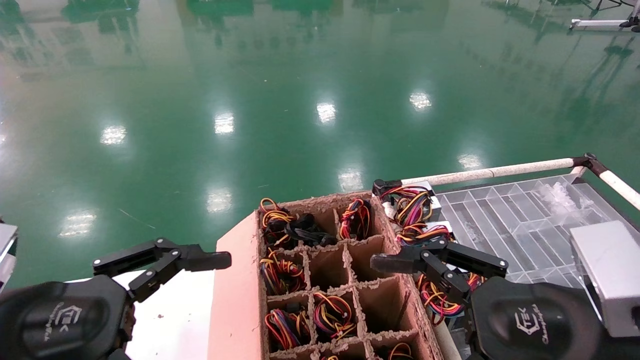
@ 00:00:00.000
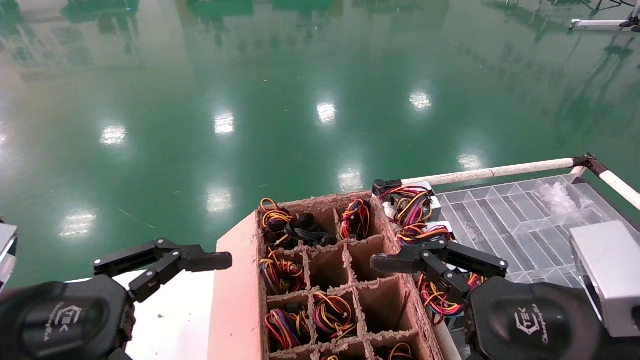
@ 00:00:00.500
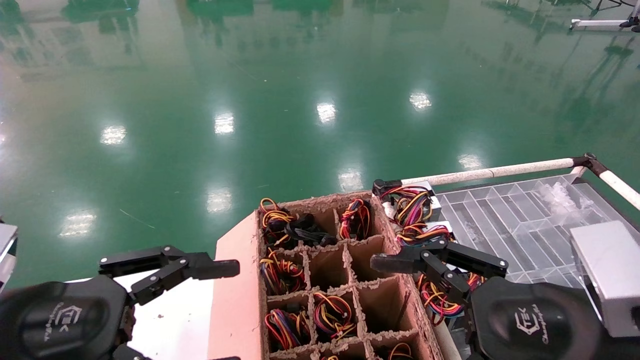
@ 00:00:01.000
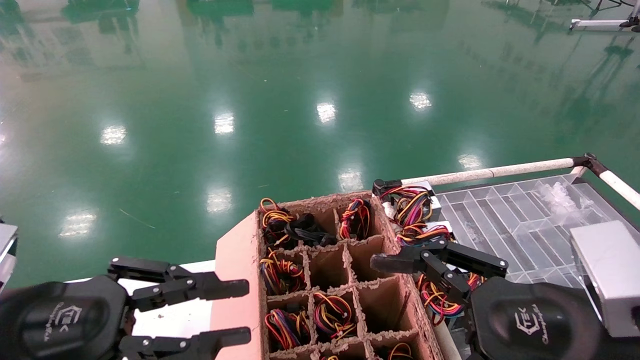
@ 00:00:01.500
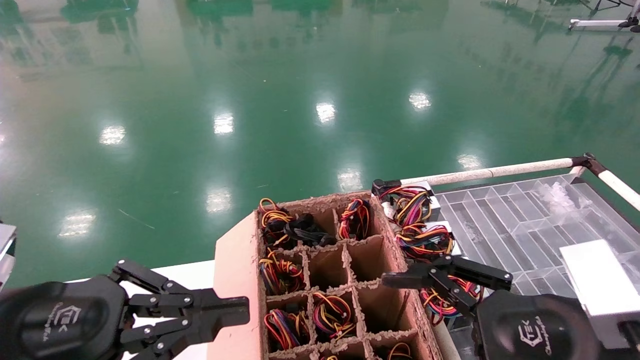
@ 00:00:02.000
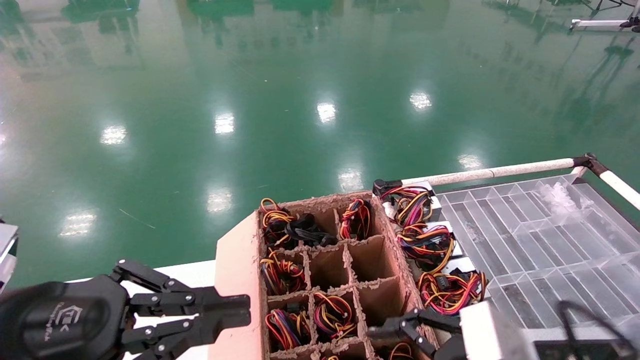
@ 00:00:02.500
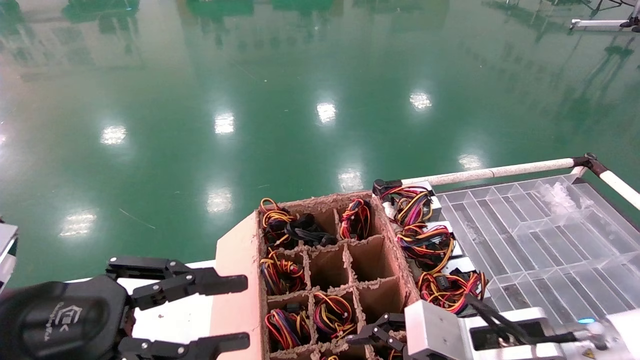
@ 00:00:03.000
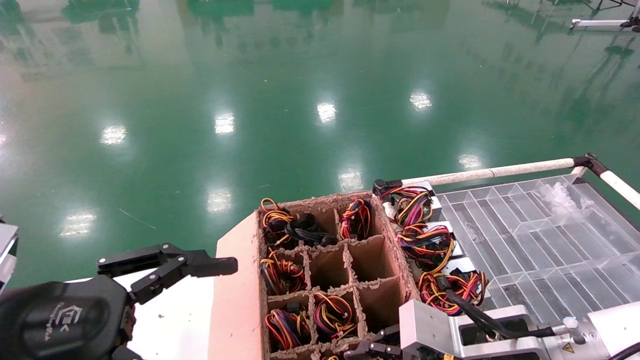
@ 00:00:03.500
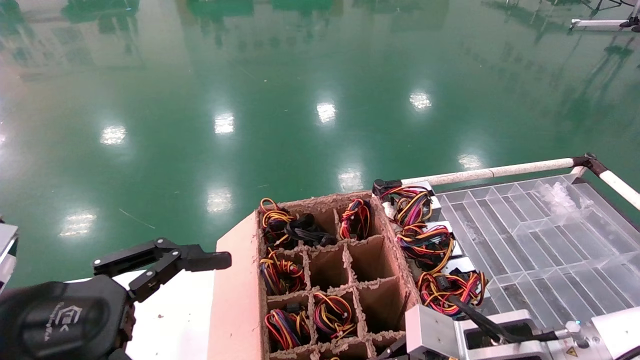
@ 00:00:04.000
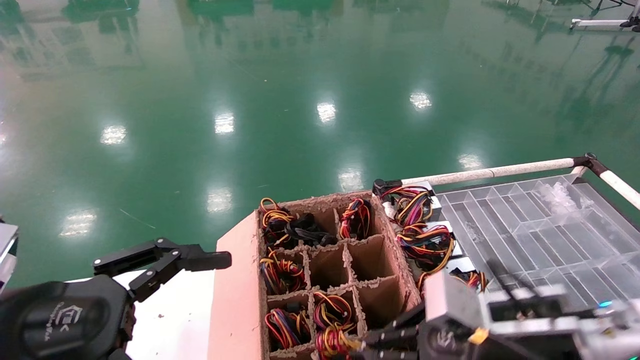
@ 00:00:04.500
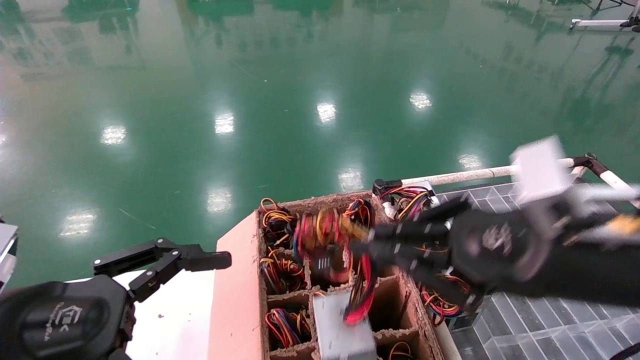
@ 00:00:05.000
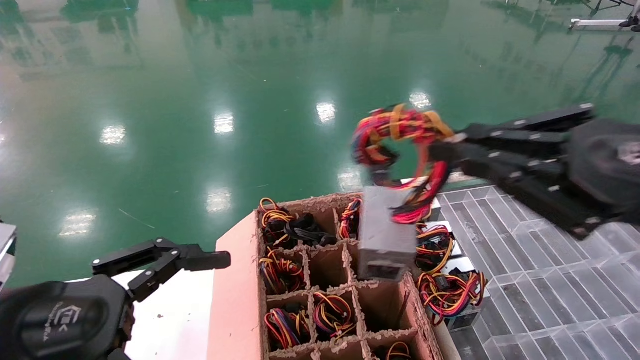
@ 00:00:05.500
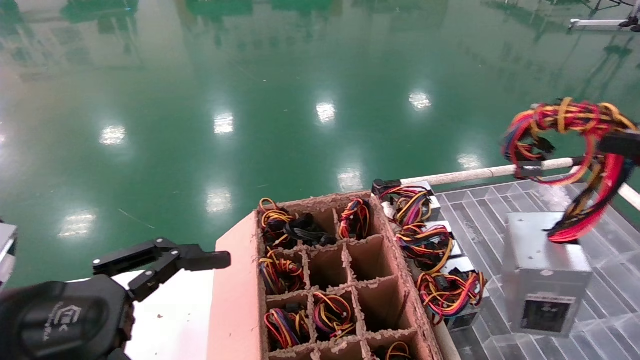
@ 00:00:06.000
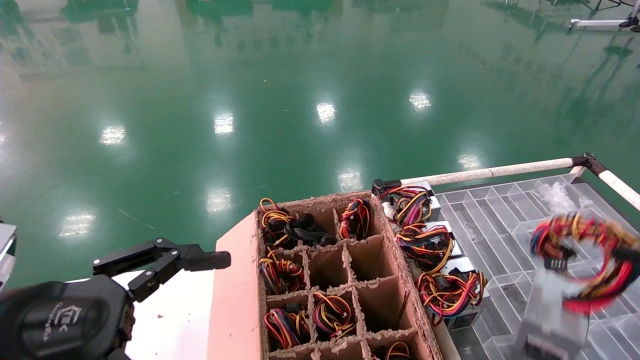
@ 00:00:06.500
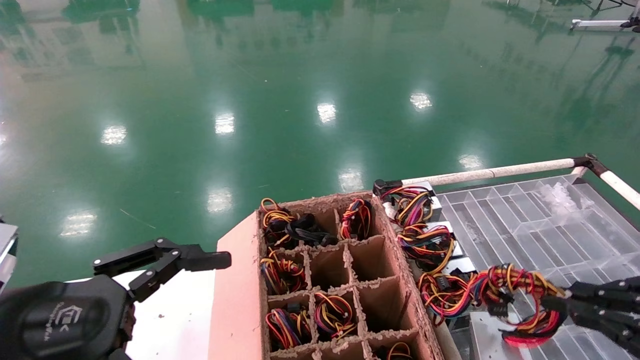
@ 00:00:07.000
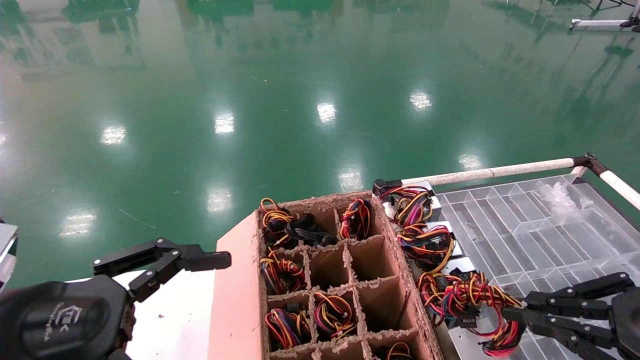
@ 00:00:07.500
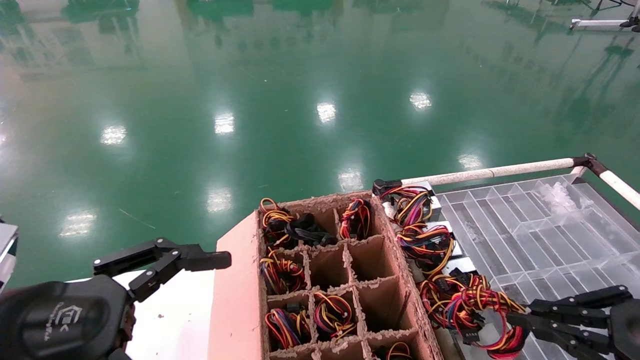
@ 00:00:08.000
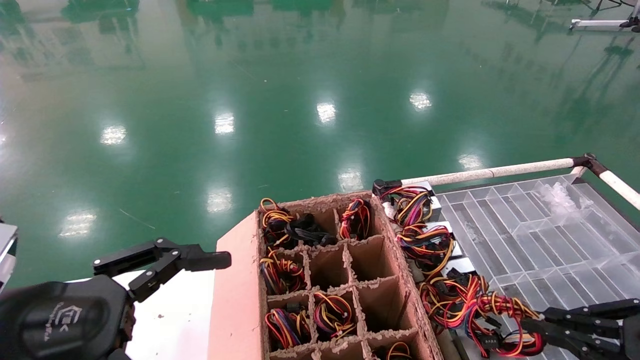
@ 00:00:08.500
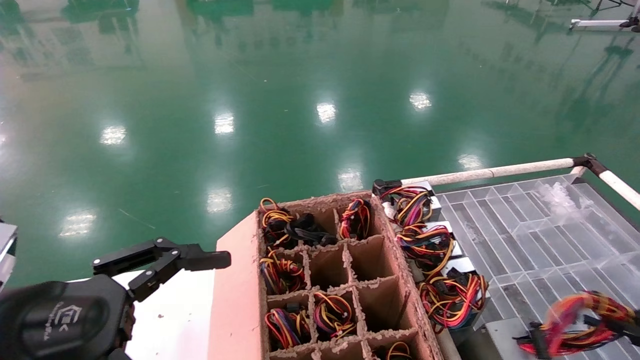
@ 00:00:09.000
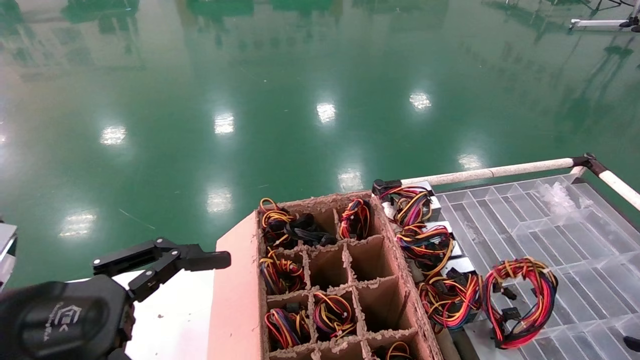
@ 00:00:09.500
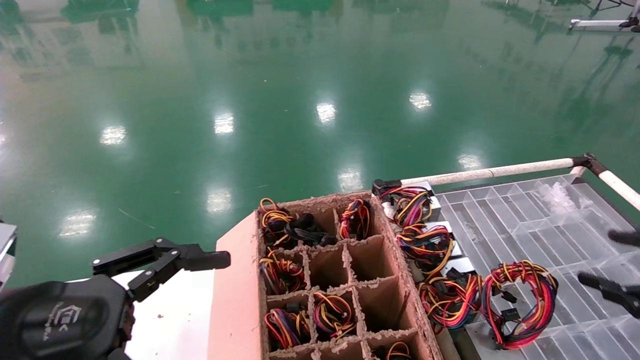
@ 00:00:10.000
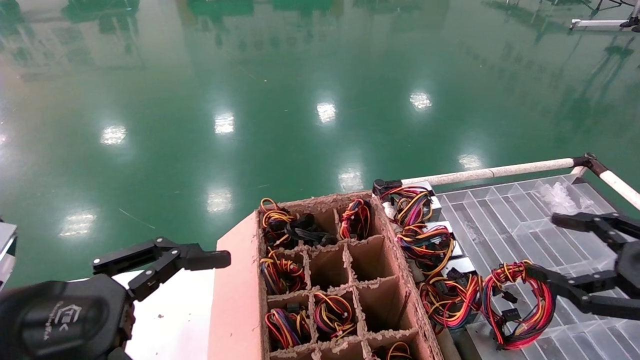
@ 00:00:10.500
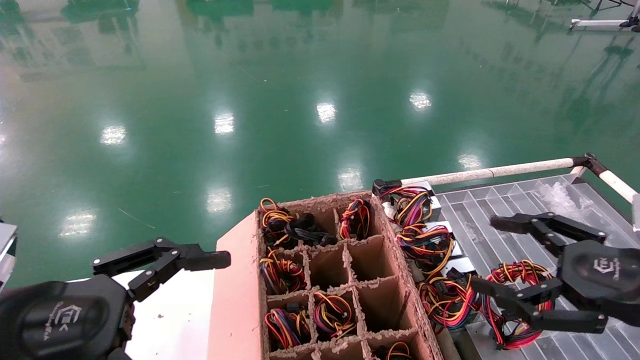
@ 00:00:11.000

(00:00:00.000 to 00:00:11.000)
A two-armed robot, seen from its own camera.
Step, 00:00:02.500 - 00:00:04.000: Grab and lift the power supply from the large box.
Step, 00:00:04.500 - 00:00:09.000: Place the power supply on the operating table.
00:00:00.000 - 00:00:02.000: The left gripper closes up.
00:00:02.000 - 00:00:03.500: The left gripper opens, while the right gripper travels forward and downward by about 10 cm, and closes.
00:00:03.500 - 00:00:05.500: The right gripper travels upward, backward and to the right by about 25 cm, and closes its fingers.
00:00:05.500 - 00:00:07.500: The right gripper goes some 15 cm downward and to the right.
00:00:07.500 - 00:00:09.000: The right gripper moves to the right and downward, about 15 cm.
00:00:09.000 - 00:00:11.000: The right gripper heads to the left and upward, covering approximately 20 cm, and opens up.

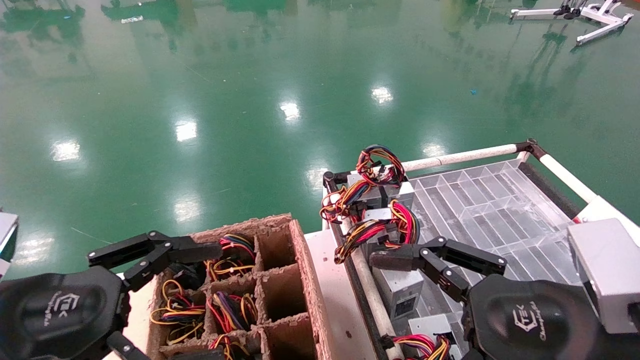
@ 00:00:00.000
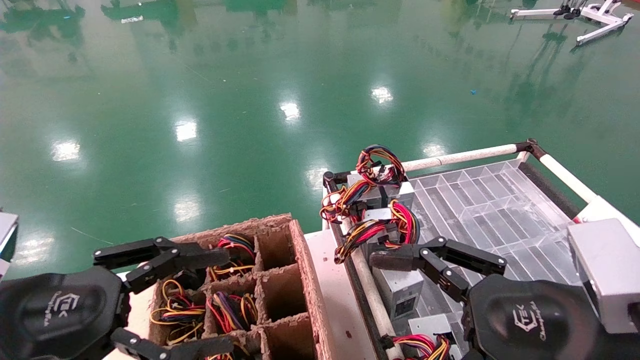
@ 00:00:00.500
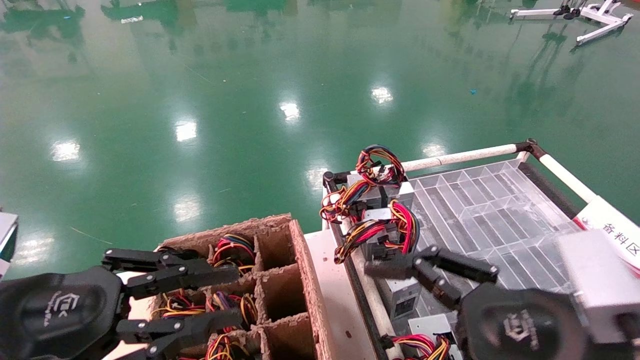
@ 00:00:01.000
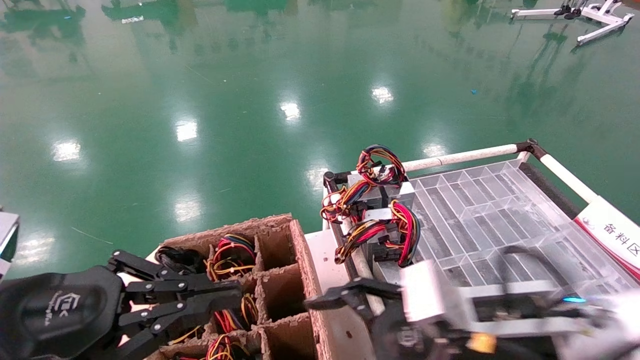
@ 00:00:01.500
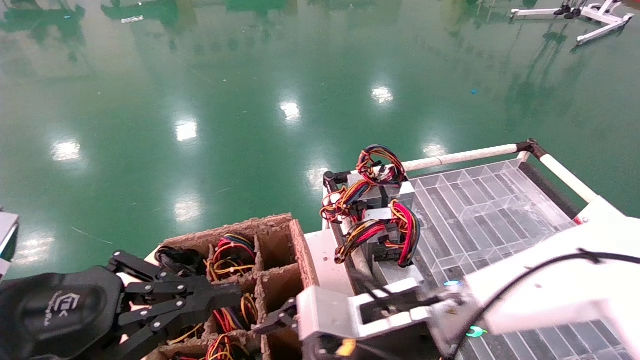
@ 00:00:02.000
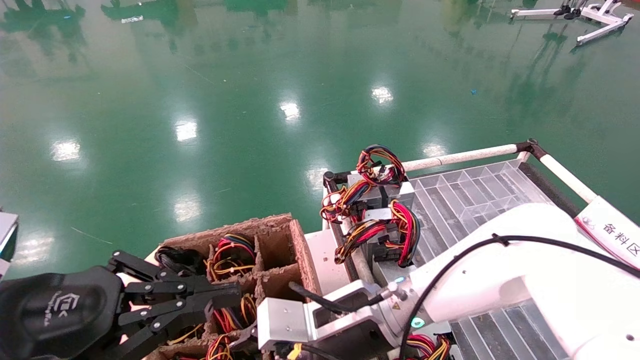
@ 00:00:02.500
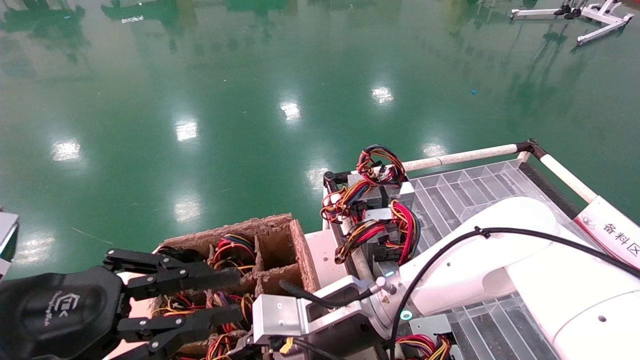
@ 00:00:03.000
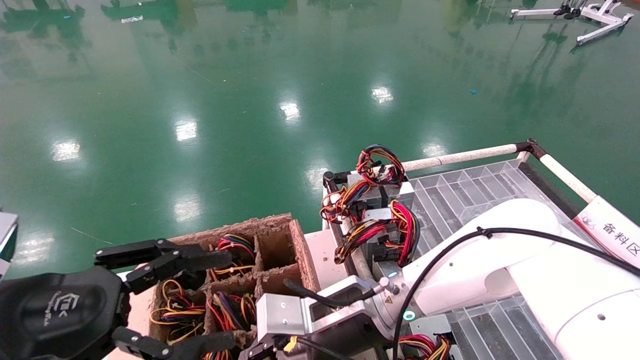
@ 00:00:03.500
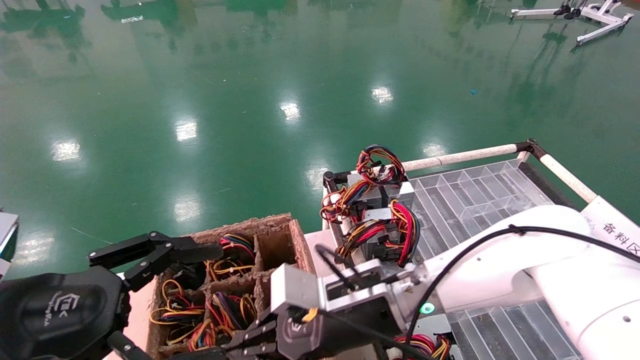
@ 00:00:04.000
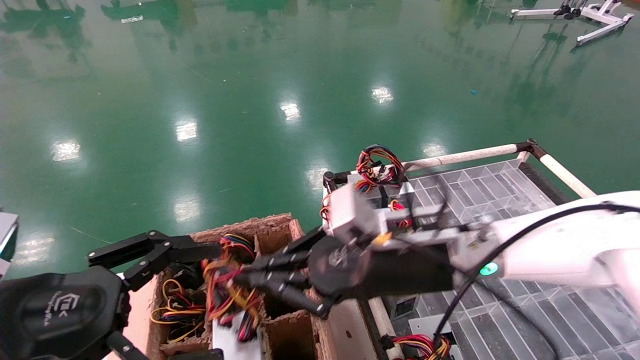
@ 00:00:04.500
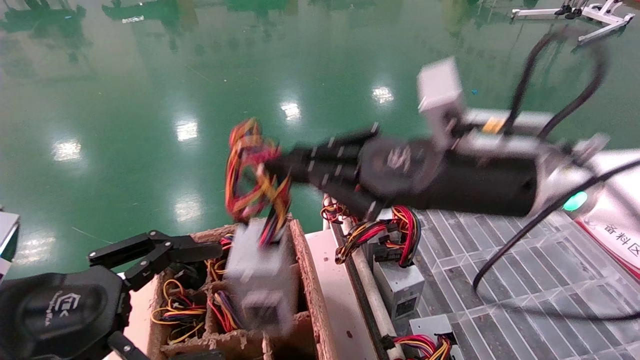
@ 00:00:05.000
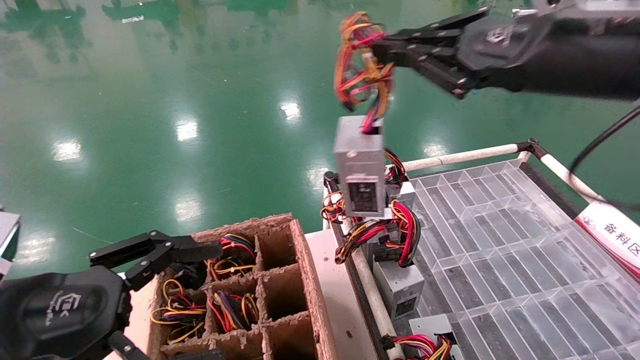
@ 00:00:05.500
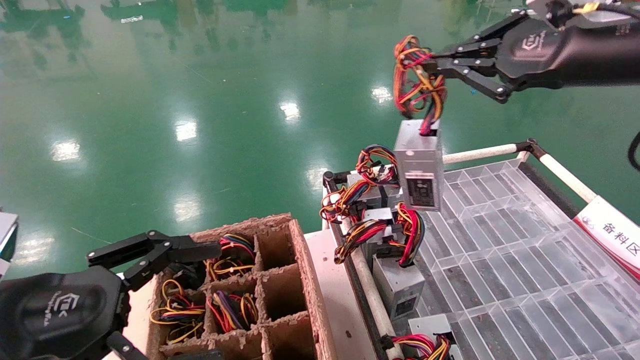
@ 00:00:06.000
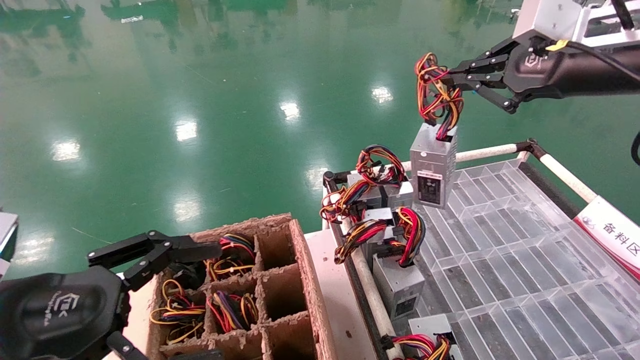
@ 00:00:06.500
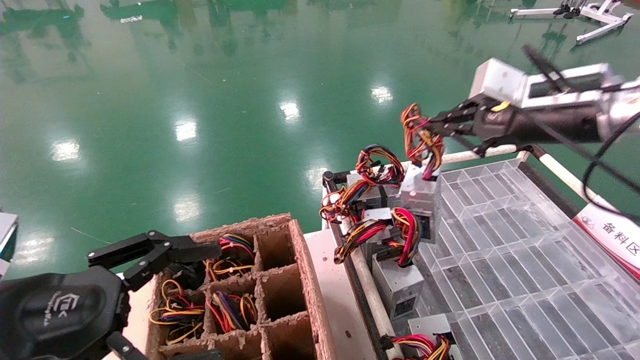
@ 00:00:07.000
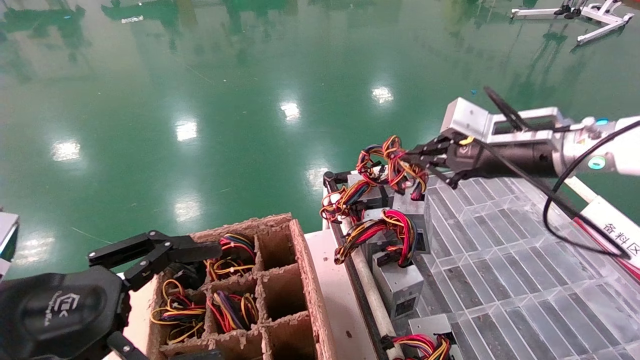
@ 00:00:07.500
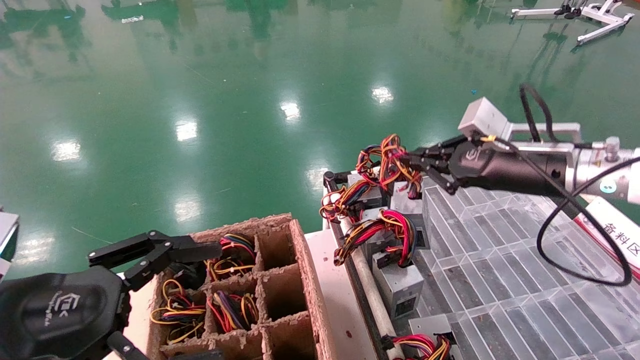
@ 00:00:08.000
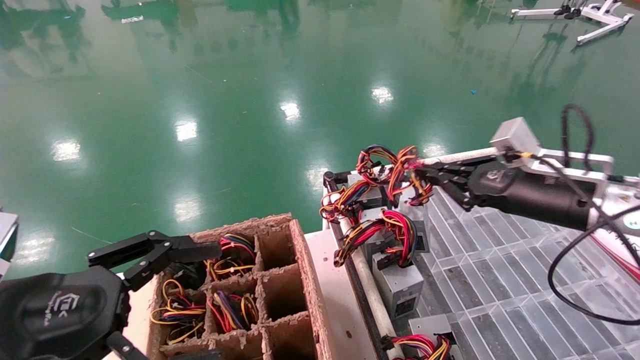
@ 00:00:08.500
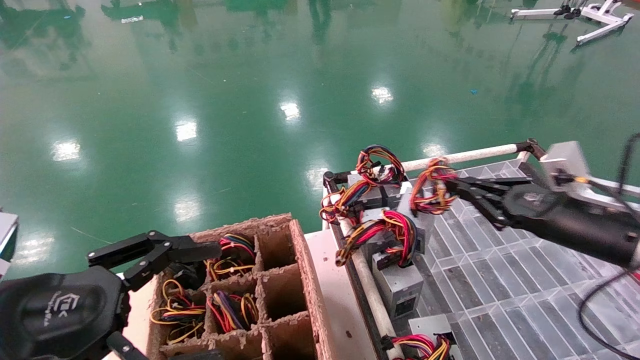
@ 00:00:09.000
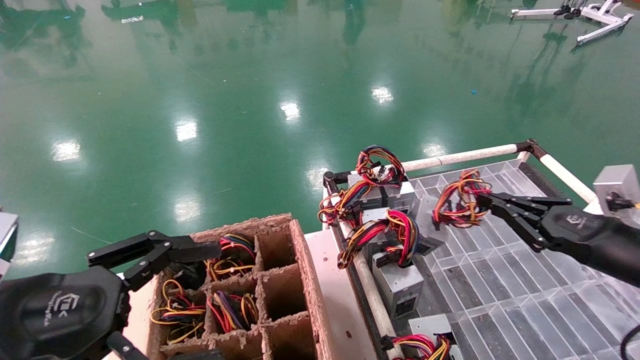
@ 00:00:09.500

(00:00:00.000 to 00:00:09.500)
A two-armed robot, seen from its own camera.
Step, 00:00:01.000 - 00:00:03.500: Grab and lift the power supply from the large box.
00:00:00.000 - 00:00:02.000: The left gripper closes. Meanwhile the right gripper is displaced to the left, forward and downward by approximately 20 cm.
00:00:02.000 - 00:00:04.000: The right gripper closes. The left gripper opens.
00:00:04.000 - 00:00:05.500: The right gripper goes about 30 cm upward and to the right.
00:00:05.500 - 00:00:07.500: The right gripper is displaced forward and downward by roughly 10 cm.
00:00:07.500 - 00:00:09.500: The right gripper travels downward, to the right and backward by some 20 cm.
